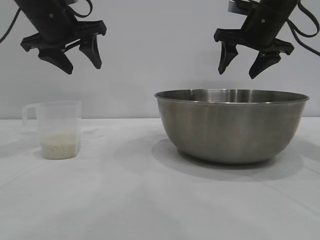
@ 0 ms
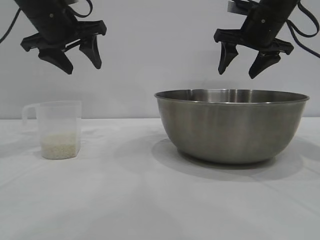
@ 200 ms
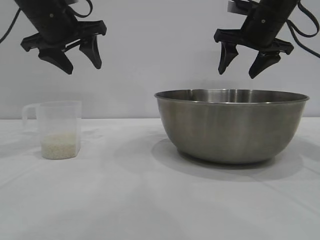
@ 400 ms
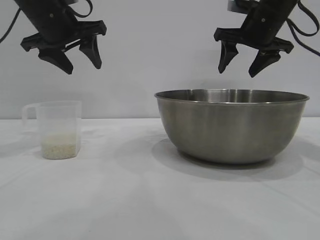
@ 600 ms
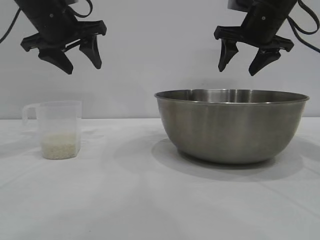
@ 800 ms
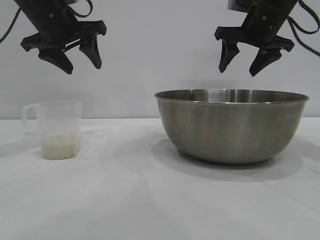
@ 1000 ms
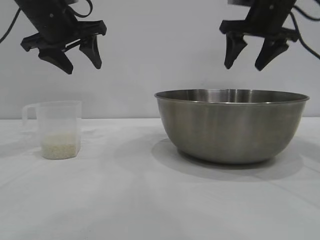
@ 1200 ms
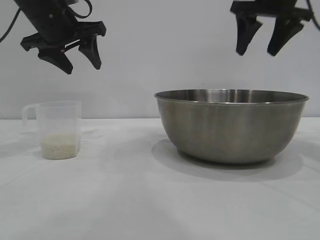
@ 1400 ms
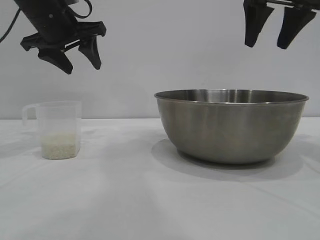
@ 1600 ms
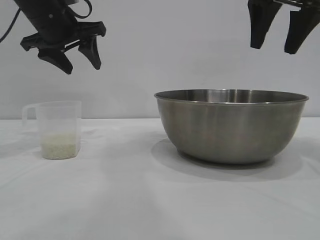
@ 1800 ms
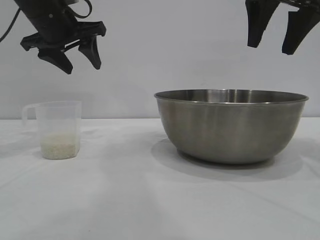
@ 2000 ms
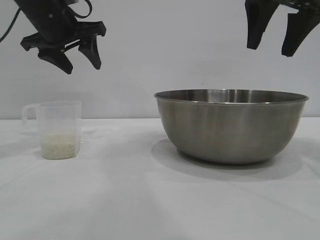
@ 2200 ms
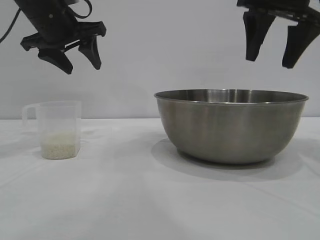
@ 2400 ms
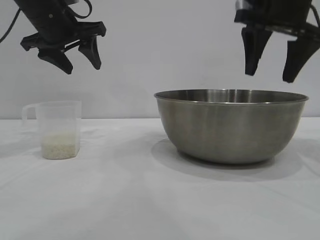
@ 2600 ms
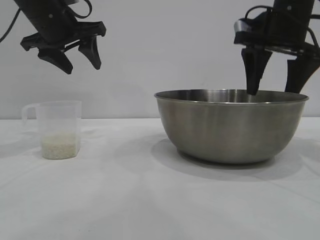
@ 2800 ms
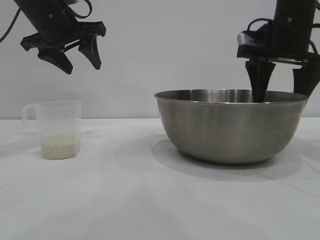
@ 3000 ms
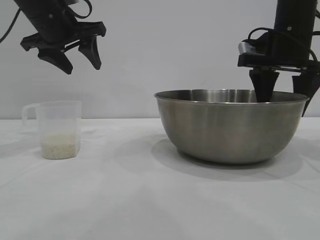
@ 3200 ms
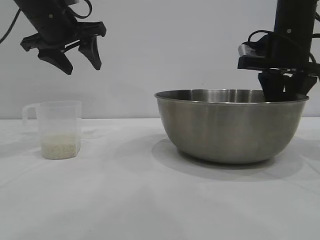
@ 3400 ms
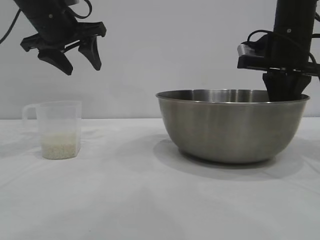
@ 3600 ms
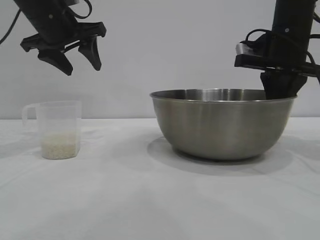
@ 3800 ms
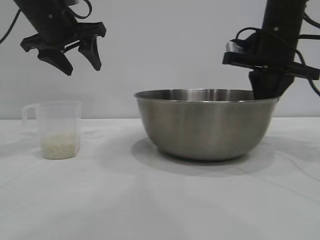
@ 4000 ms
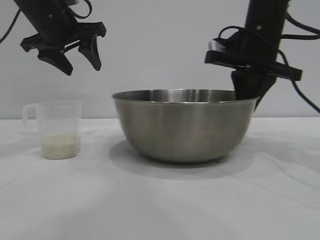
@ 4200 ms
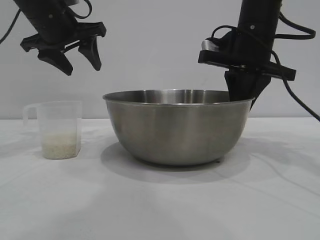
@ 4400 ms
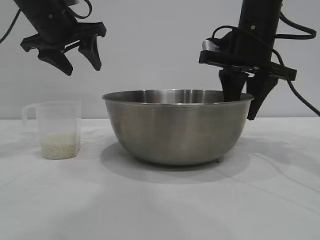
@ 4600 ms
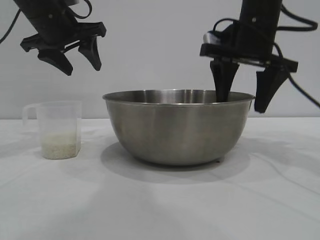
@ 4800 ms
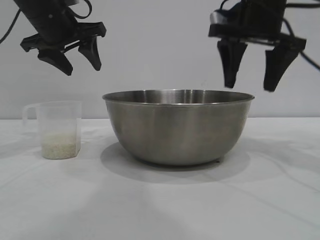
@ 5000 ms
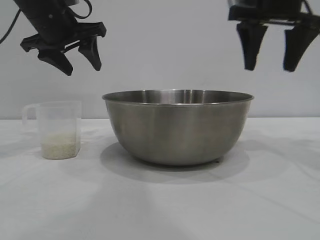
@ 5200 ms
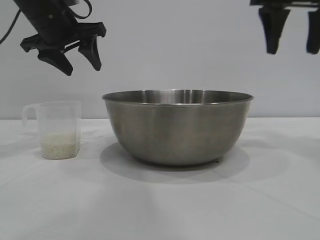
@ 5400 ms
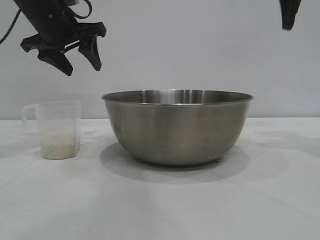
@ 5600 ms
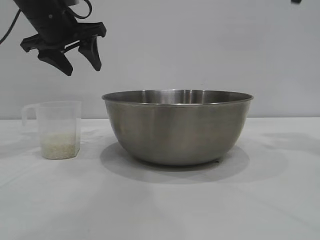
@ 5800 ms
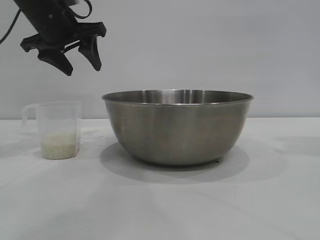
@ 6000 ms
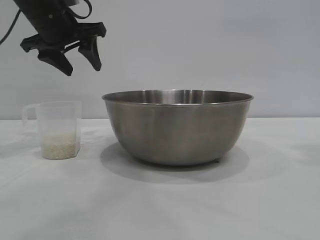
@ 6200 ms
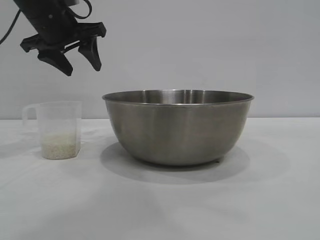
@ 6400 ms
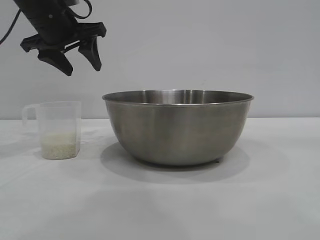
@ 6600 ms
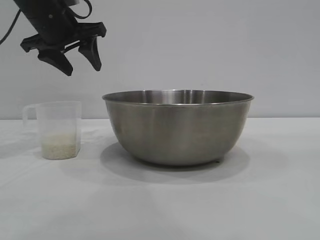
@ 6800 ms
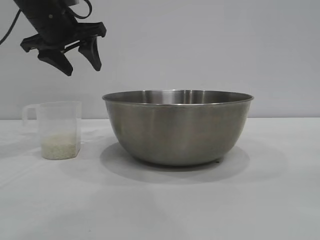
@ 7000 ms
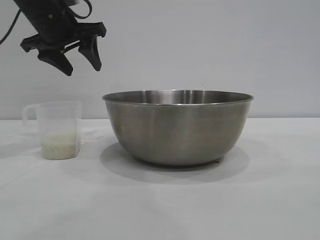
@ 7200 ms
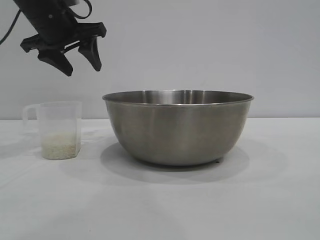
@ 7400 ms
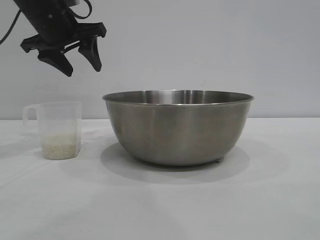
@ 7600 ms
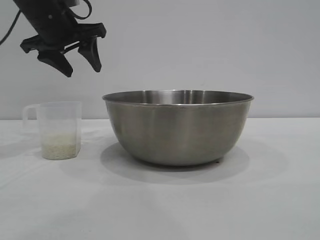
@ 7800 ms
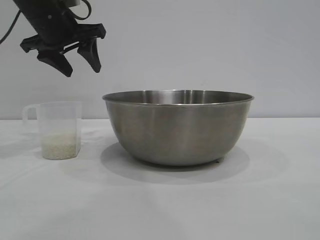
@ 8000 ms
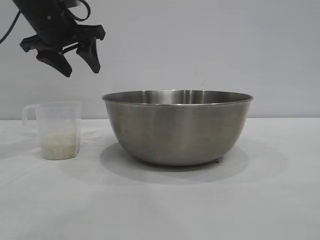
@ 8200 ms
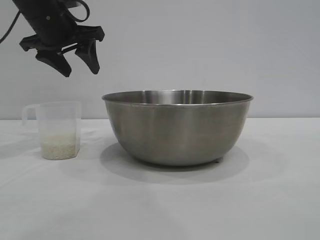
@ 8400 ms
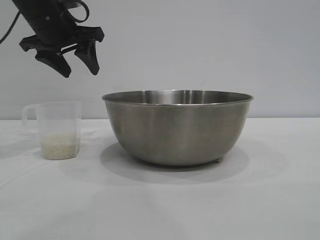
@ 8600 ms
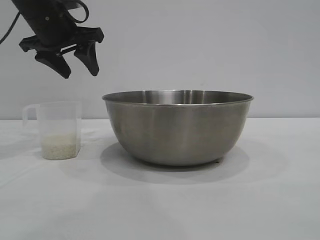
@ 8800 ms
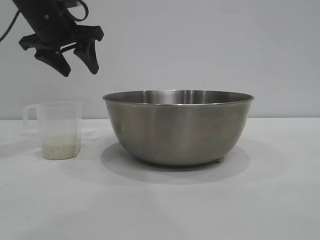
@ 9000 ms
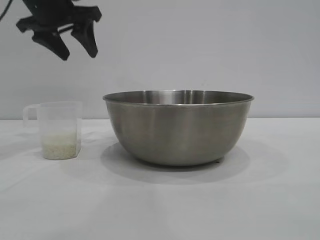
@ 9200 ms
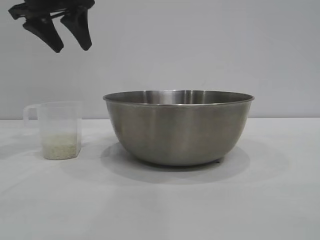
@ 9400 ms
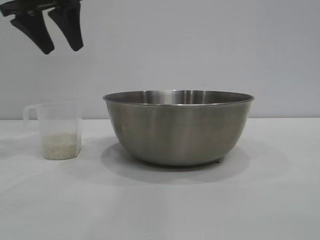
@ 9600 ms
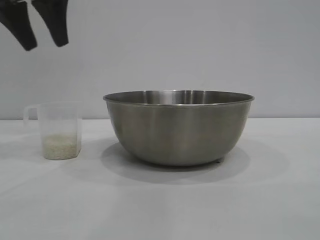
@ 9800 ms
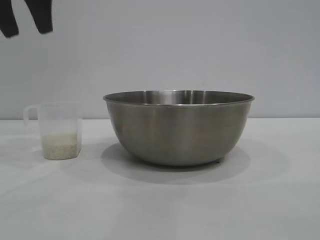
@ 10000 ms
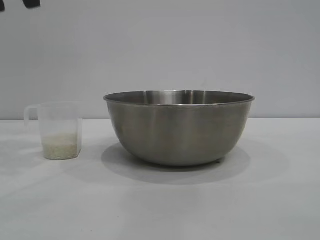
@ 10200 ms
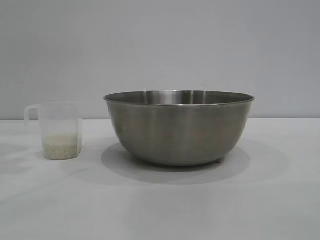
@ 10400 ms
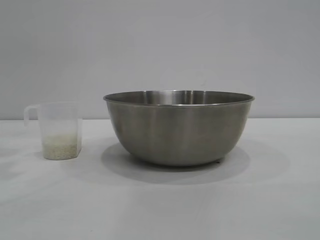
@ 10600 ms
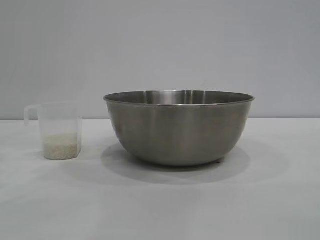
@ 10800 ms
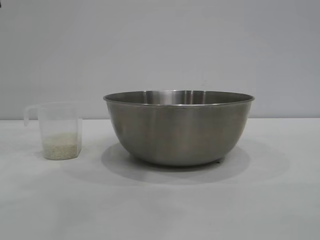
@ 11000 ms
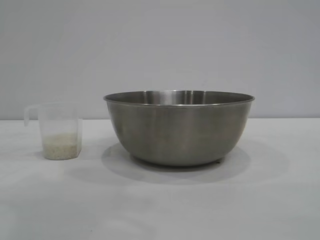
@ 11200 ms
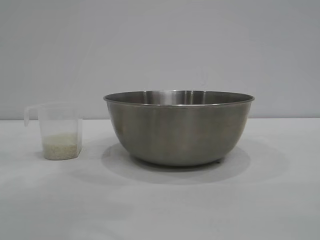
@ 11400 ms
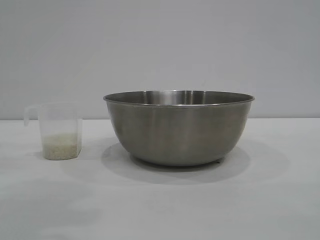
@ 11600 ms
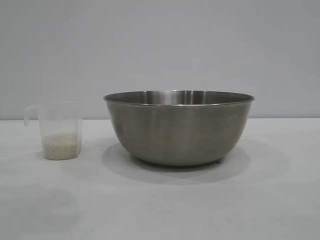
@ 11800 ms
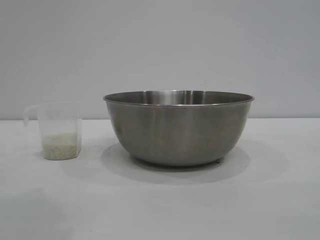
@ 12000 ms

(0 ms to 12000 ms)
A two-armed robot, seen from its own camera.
Task of the whole recording: the right gripper grasp the rice container and place it in the center of the table, the left gripper grasp the rice scoop and pour the rice into the rice container.
Step, 0 ms - 5000 ms: Move the bowl to the center of view with the right gripper.

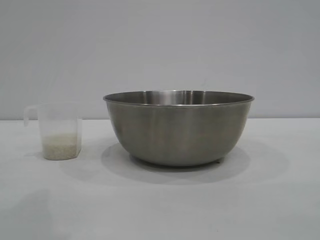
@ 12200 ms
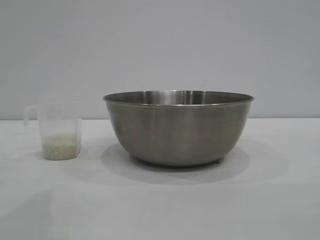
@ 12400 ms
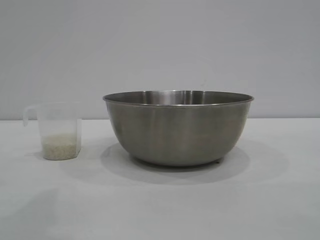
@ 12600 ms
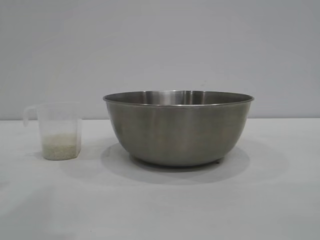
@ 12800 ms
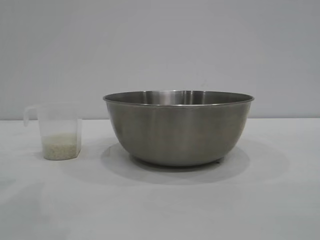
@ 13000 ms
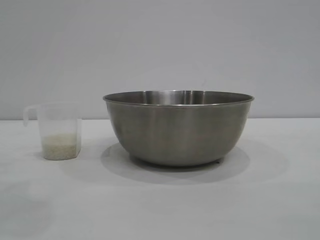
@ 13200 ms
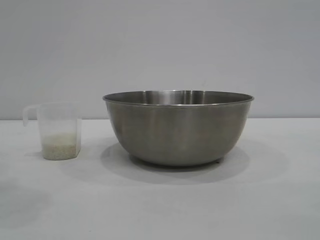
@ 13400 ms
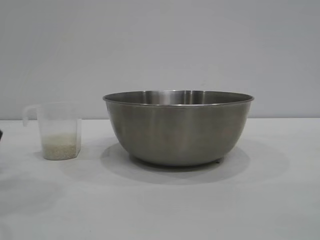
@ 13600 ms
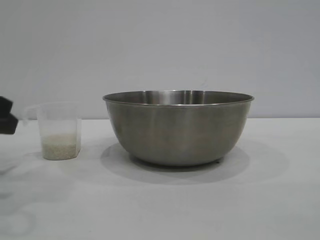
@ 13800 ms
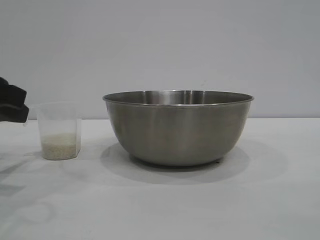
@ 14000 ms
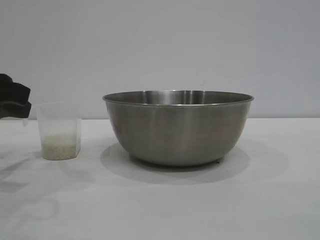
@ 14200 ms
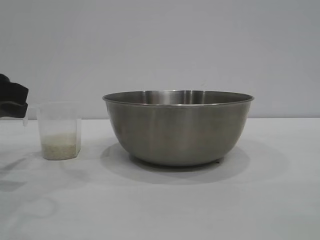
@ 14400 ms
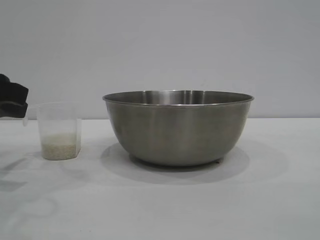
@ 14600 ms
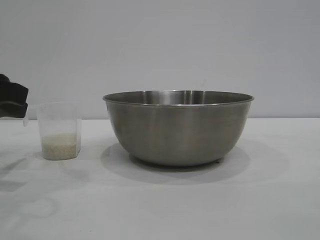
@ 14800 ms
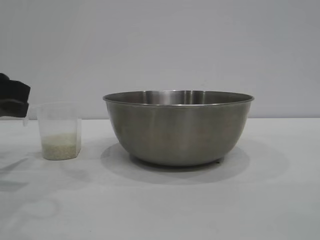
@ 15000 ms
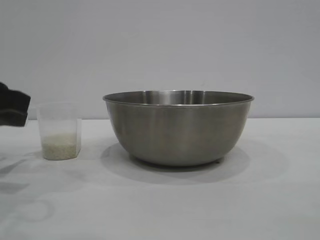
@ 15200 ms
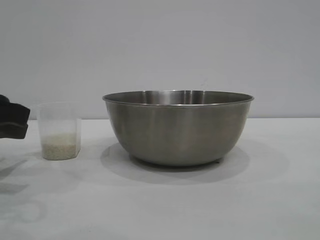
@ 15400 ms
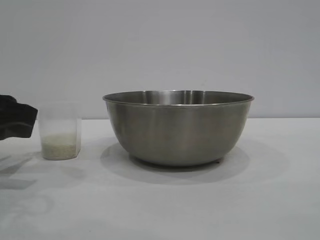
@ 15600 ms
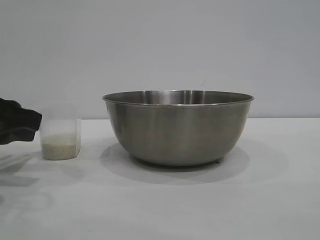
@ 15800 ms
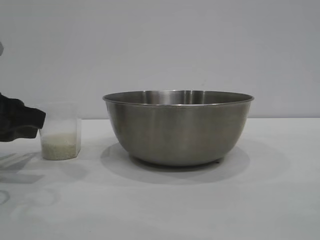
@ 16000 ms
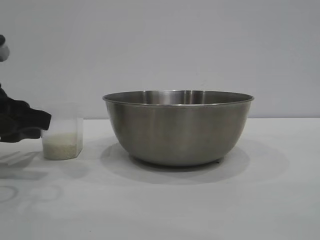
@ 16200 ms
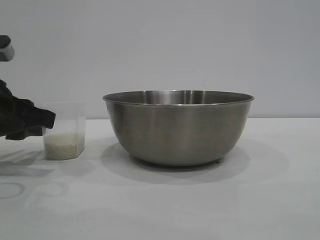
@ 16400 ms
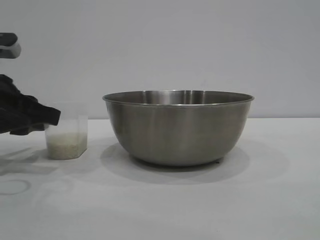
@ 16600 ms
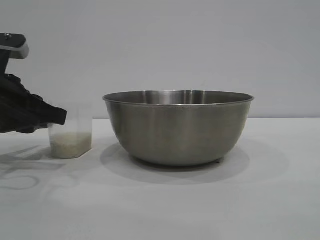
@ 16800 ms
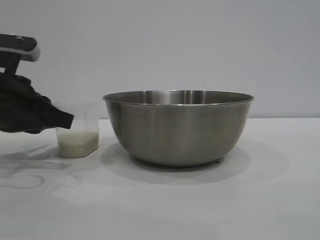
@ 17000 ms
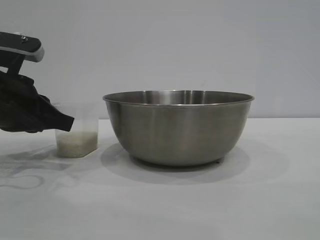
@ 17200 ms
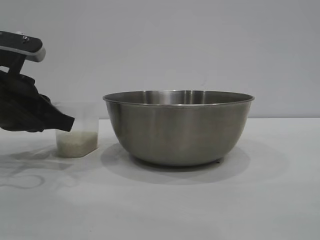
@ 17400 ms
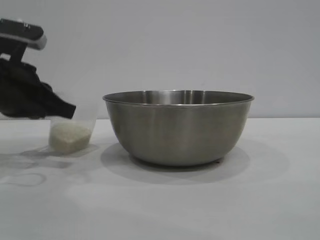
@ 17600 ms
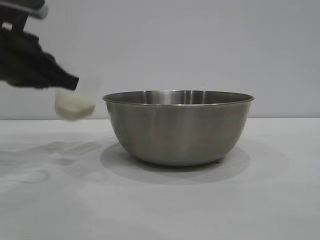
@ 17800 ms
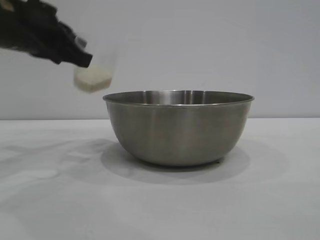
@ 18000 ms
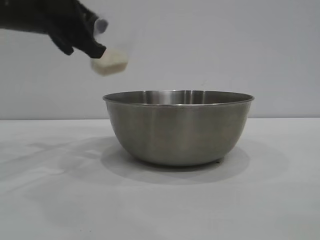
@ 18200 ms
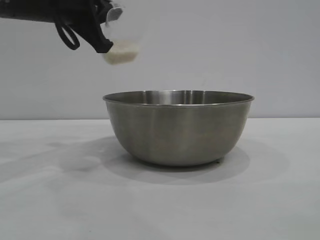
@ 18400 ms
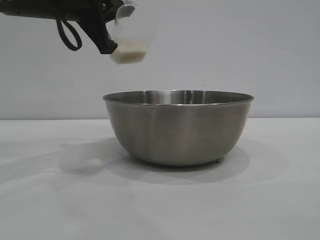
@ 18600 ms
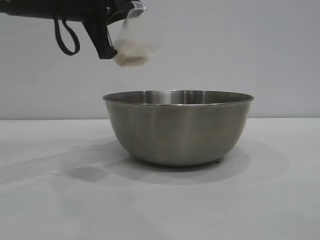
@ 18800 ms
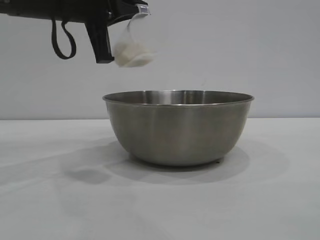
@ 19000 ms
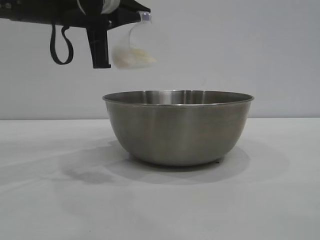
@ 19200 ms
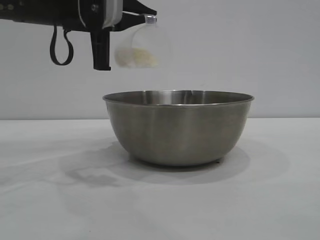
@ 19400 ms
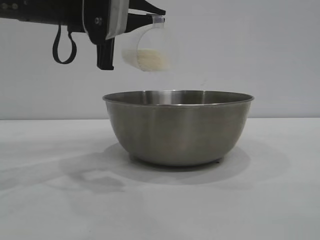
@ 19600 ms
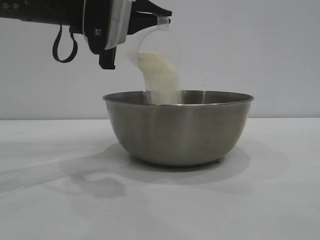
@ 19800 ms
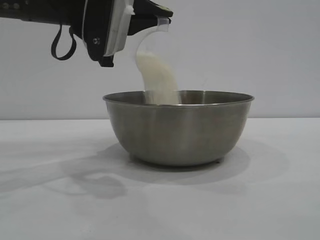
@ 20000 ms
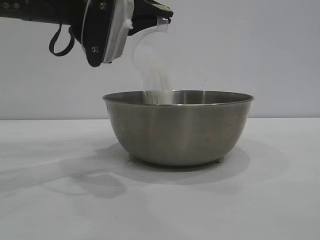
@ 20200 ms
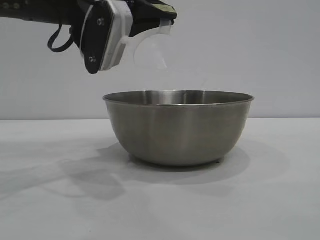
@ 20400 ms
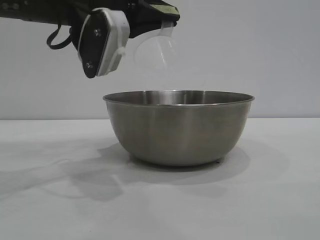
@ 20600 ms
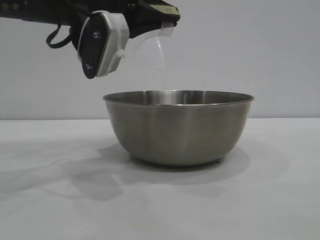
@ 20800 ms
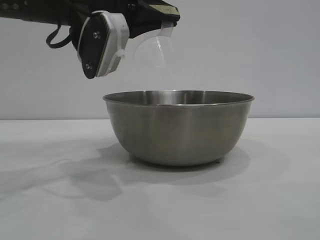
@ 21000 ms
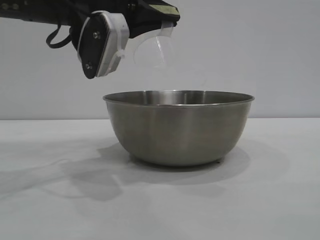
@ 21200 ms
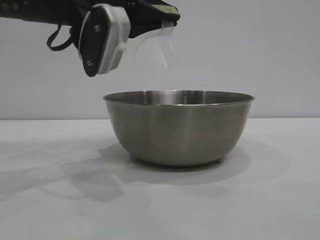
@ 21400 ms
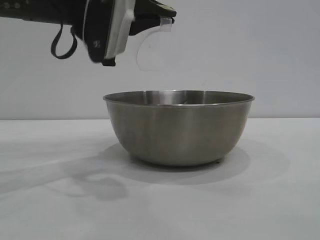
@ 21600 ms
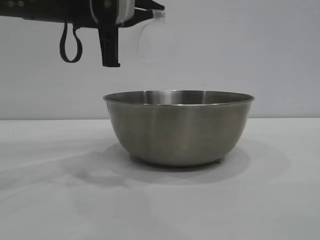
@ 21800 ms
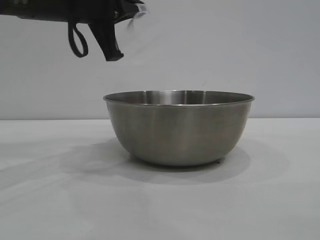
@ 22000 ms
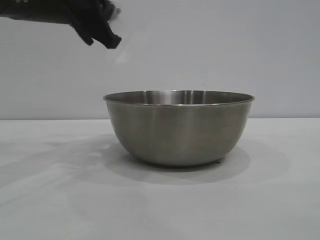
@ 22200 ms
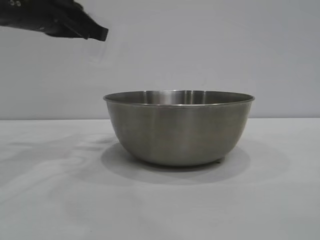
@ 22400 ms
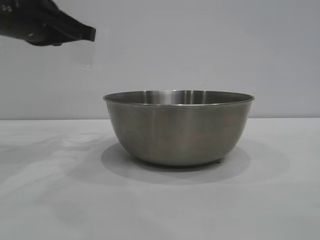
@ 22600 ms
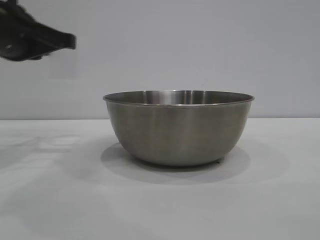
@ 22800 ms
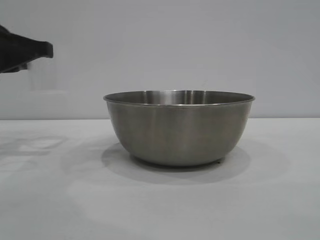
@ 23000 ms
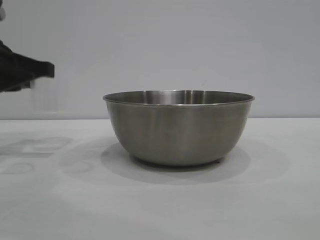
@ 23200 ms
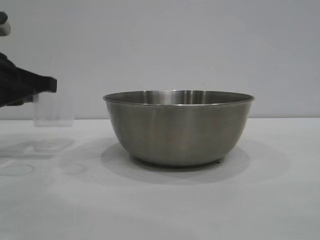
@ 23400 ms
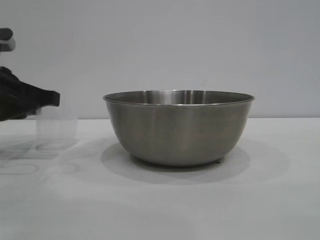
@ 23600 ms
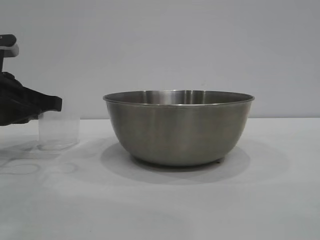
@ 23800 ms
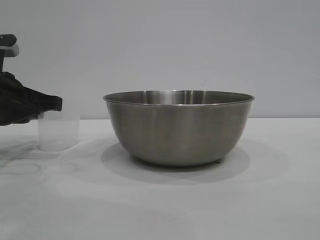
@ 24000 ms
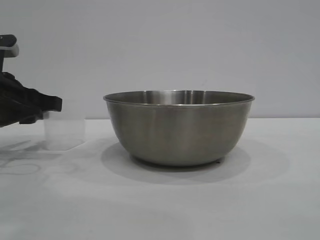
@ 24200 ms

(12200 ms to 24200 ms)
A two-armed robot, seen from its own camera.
Task of the whole recording: the right gripper grasp the rice container and place it in the center of the table, the left gripper grasp the rice scoop and pour the rice into the rice container.
Step, 12200 ms - 17400 ms: Pick up the cup with rice in it with the left gripper.
Step, 17800 ms - 21600 ms: Pour the rice from the cup into the bowl with the left gripper.
